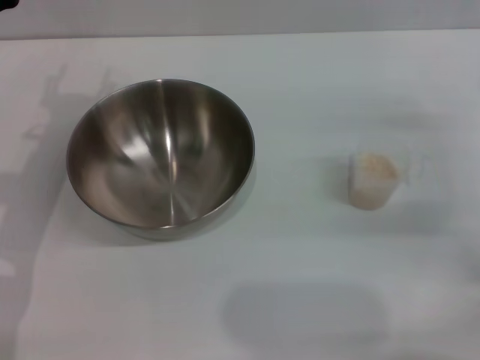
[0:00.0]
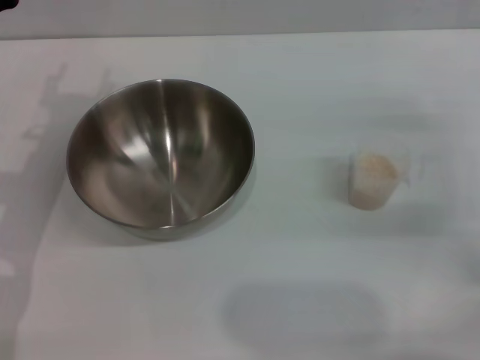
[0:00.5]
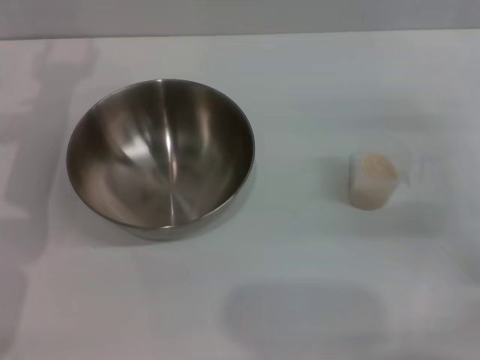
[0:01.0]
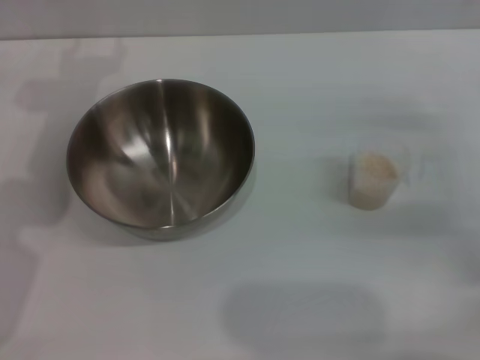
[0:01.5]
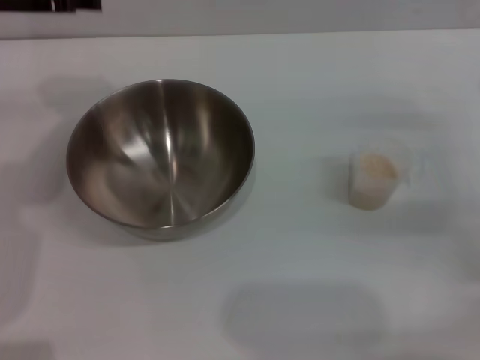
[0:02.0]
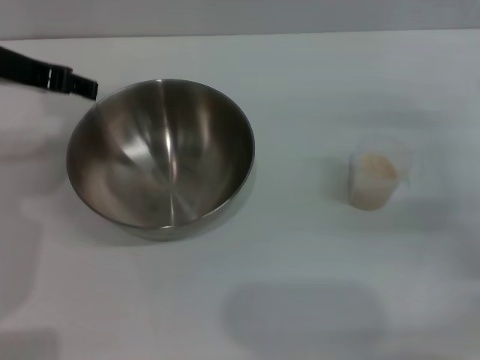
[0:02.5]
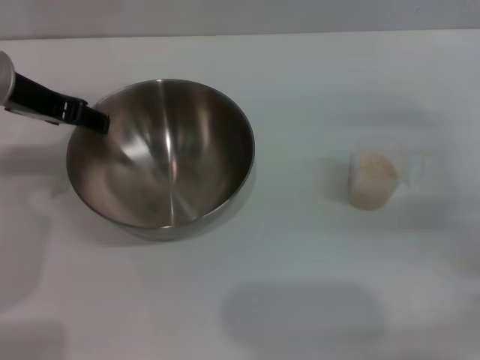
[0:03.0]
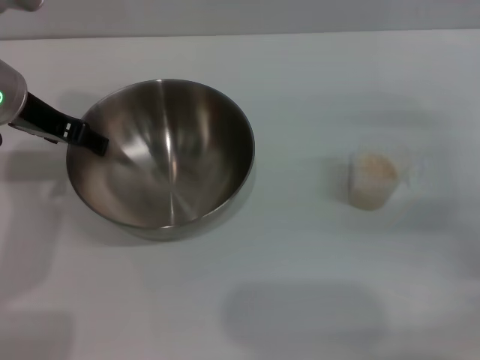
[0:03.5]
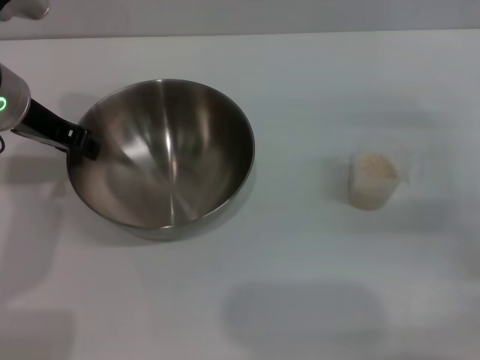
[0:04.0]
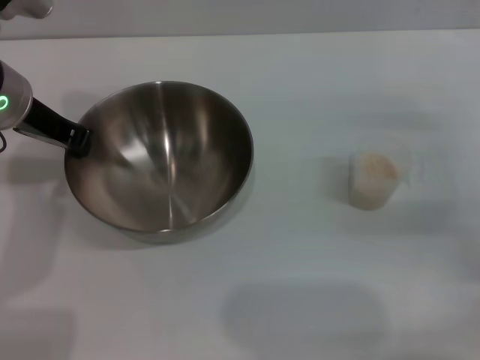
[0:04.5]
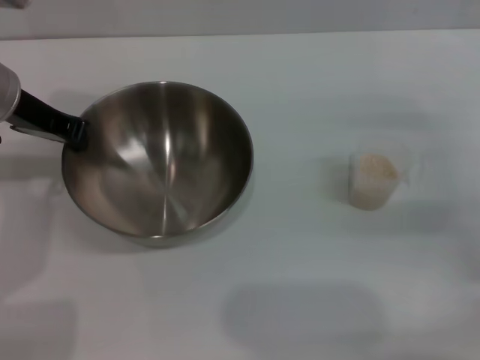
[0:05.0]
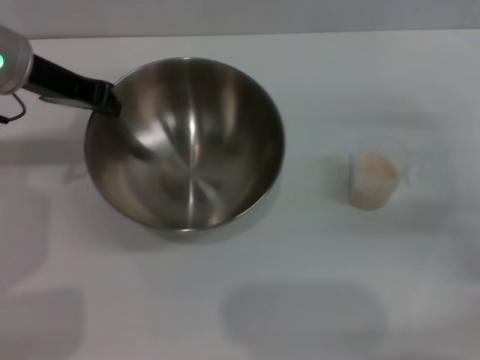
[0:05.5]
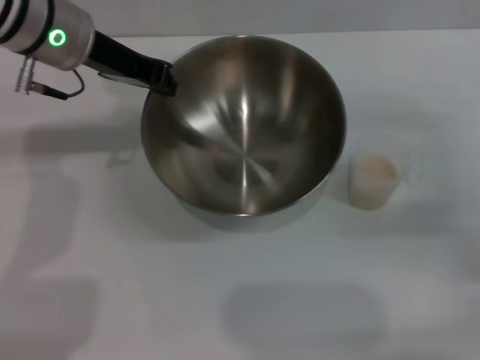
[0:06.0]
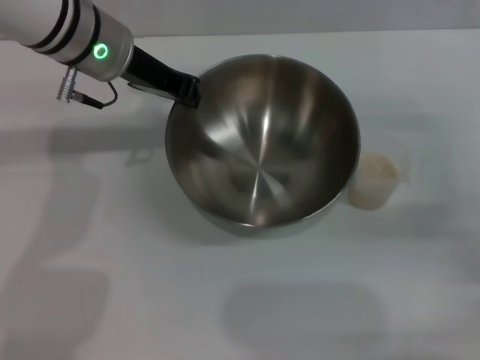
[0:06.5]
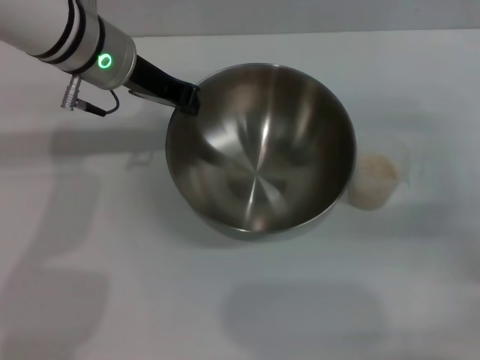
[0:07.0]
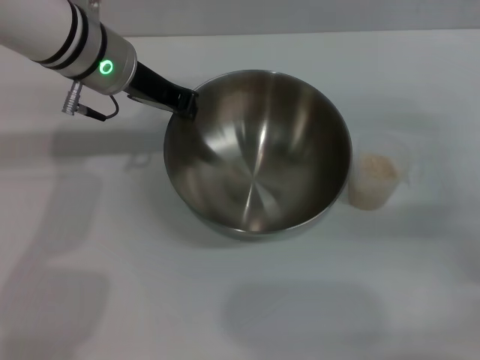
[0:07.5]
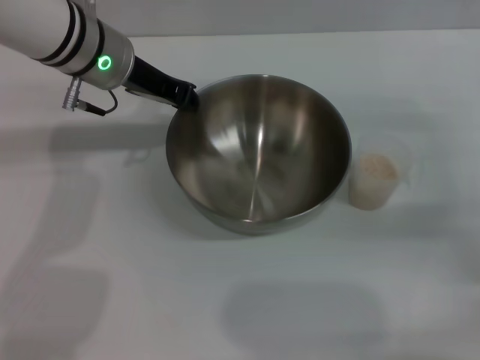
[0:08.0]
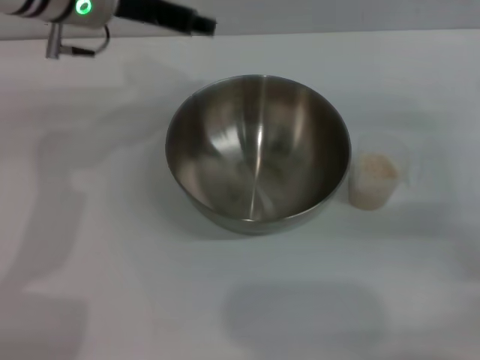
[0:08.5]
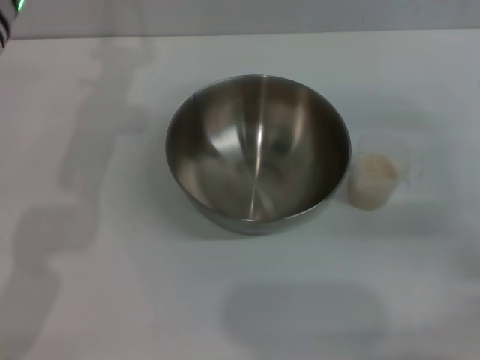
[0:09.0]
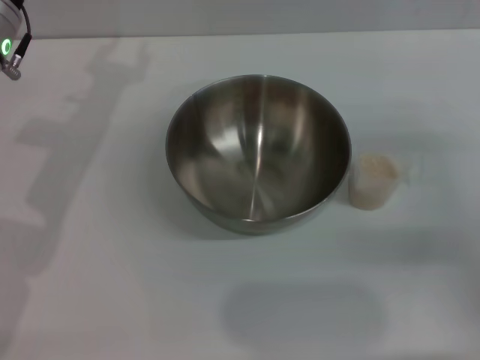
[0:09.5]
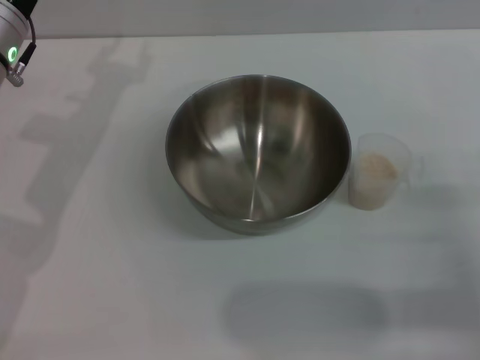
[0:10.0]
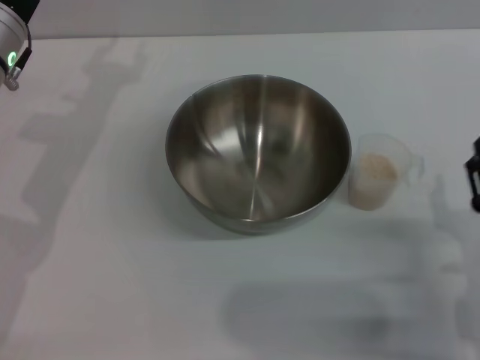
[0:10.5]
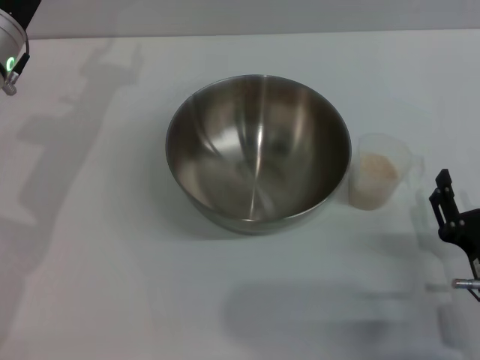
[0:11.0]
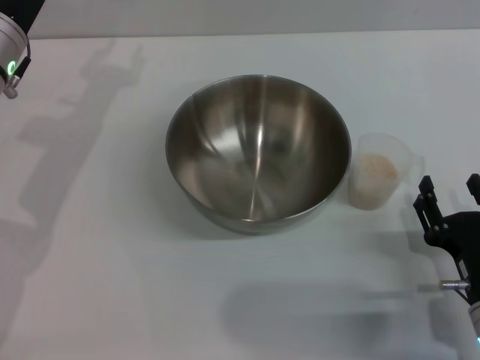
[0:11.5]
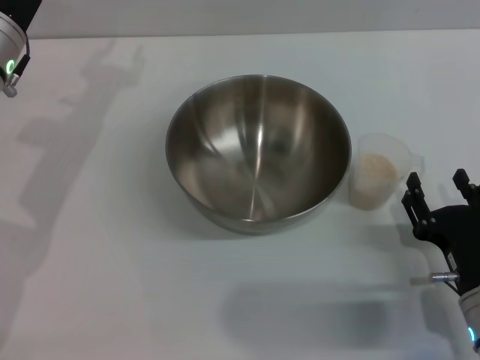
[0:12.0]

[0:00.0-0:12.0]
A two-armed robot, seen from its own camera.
Task of the whole recording: Place the bowl in the middle of the table with one hand and pour the rice from the grain cup into it with the other hand.
Step, 0:00.0 to 0:06.0: Pick up the bowl with the left gripper.
Step, 0:06.5 to 0:08.5: Place the bowl in the center of view with the left gripper.
0:00.0 to 0:02.0: The left gripper shifts roughly 15 cm upward.
0:02.0 to 0:04.0: The left gripper moves downward, approximately 5 cm.
0:04.0 to 0:06.0: The left gripper shifts approximately 5 cm to the right, and closes.
0:06.0 to 0:08.0: The grippers stay close to where they were, moving slightly.
0:08.0 to 0:10.0: The right gripper is displaced backward and downward by approximately 10 cm; the left gripper moves to the left, about 5 cm, travels upward and back again, about 5 cm each way, and opens up.
0:10.0 to 0:12.0: The right gripper moves to the left, some 10 cm.

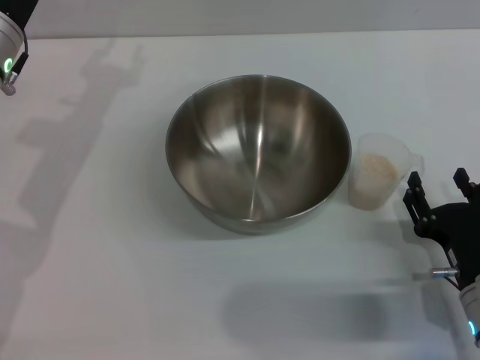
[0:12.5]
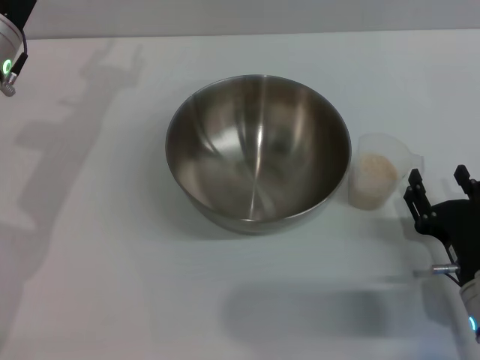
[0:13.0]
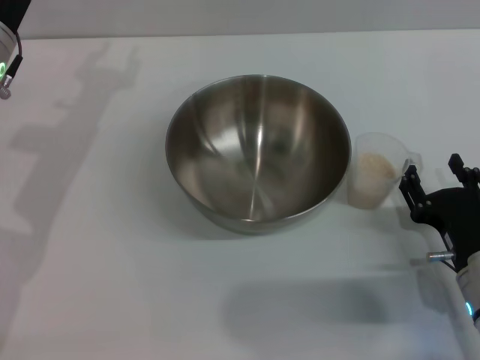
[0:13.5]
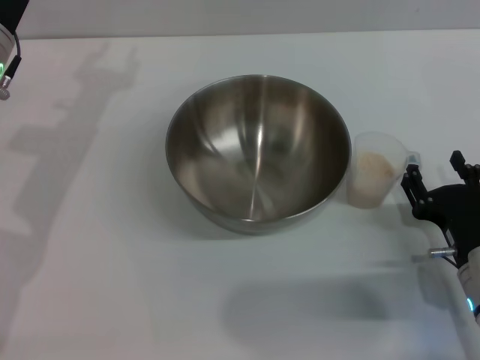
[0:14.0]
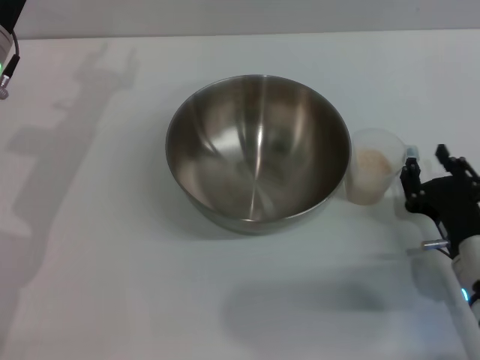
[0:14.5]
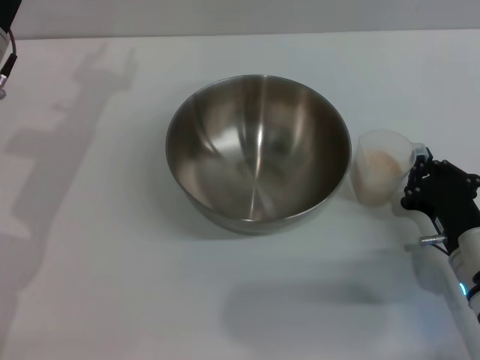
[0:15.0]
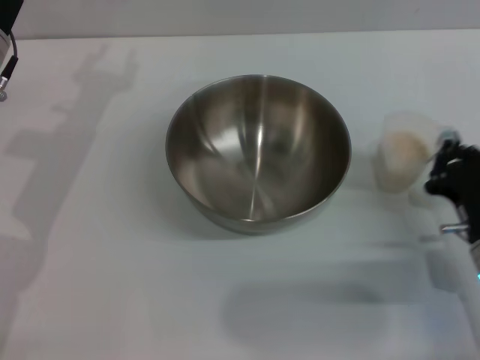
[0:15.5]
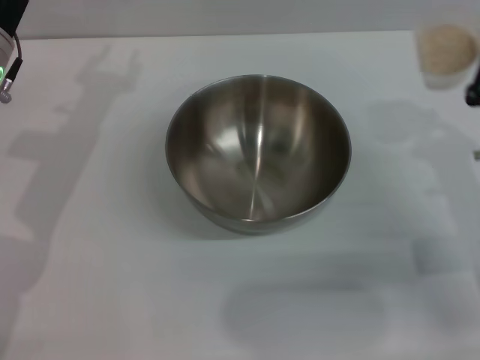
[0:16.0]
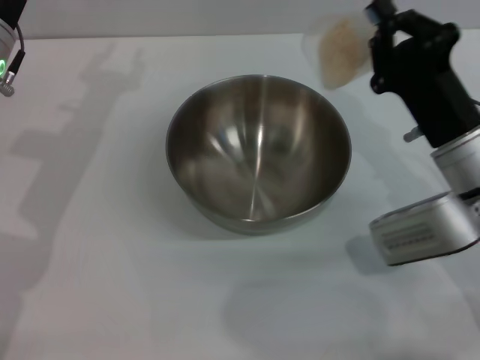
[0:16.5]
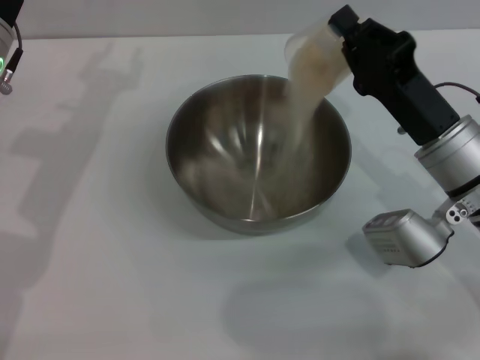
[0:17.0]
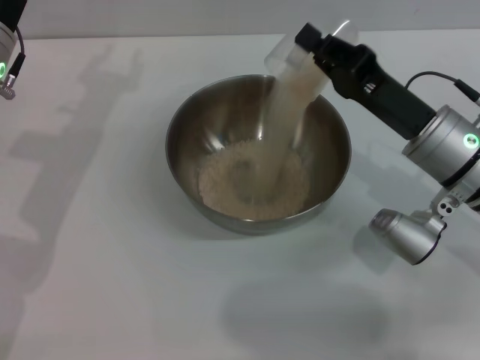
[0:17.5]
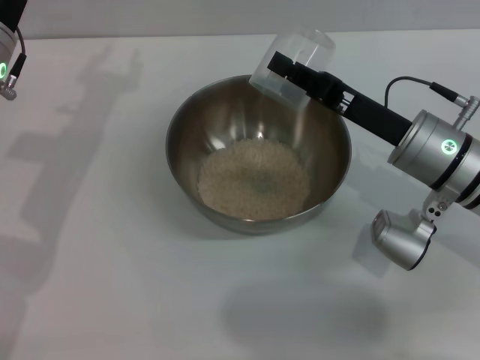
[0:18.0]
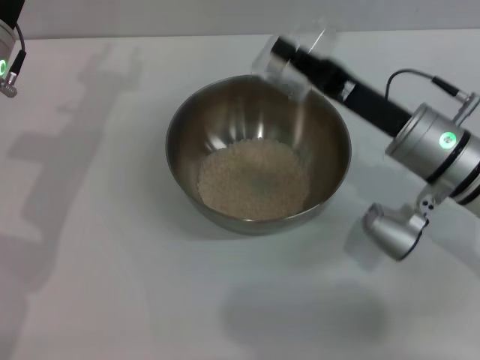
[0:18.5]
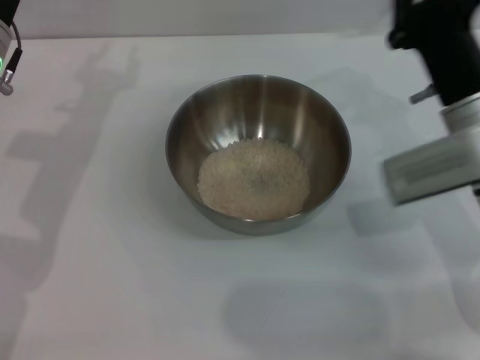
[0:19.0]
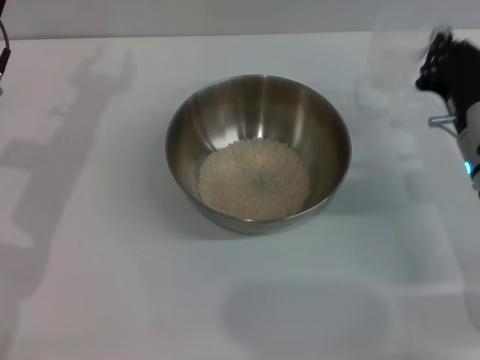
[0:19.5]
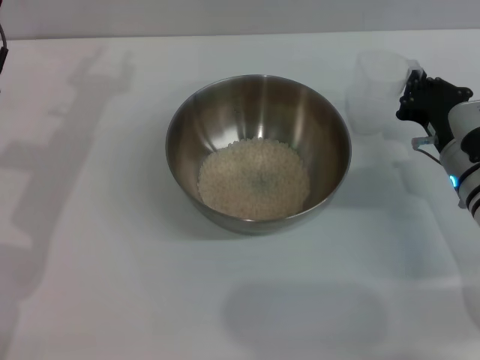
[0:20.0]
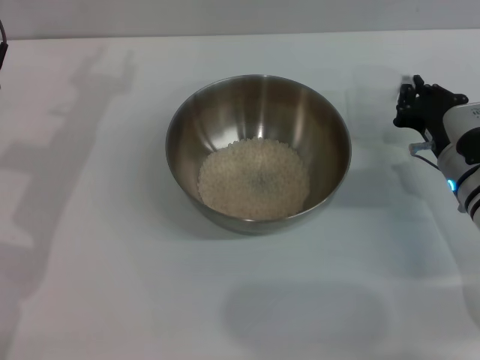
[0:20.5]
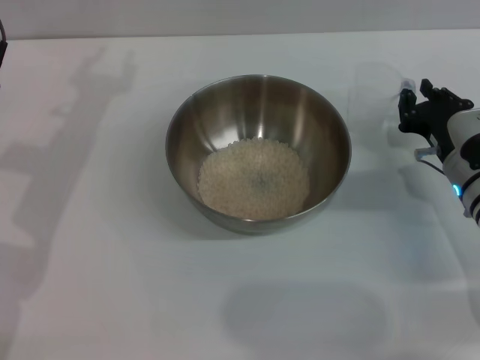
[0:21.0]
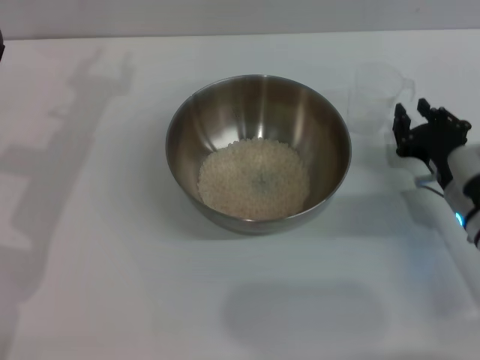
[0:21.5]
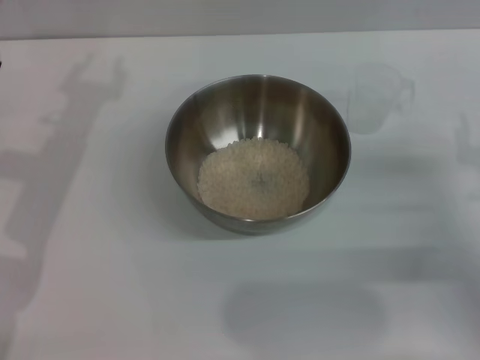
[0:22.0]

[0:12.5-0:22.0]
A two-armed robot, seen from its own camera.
Task of the whole recording: Place the bowl in the middle of the table with one hand and pour the rice from the grain cup into it with the other hand.
Step, 0:12.5 to 0:15.5: Pick up the cup with rice in it with the right gripper.
Step, 0:16.0 to 0:18.5: Pour the rice from the cup into the bowl with the right gripper.
Step, 0:19.0 to 0:21.5: Place the cup on the table with the right gripper.
0:12.5 to 0:14.5: The grippers make only small movements.
0:14.5 to 0:16.5: The right gripper heads upward and forward, covering roughly 10 cm, and closes up.
0:18.0 to 0:20.0: The right gripper is displaced downward and to the right by some 10 cm.
0:20.0 to 0:22.0: The right gripper travels backward and to the right by roughly 10 cm, and opens its fingers.
